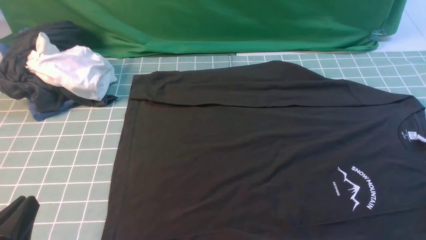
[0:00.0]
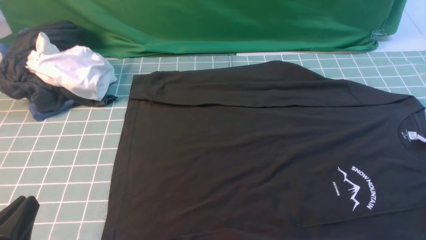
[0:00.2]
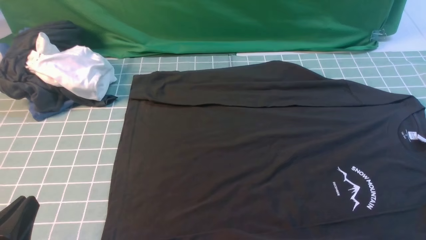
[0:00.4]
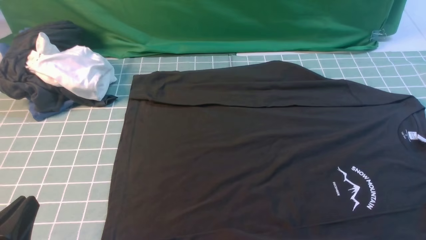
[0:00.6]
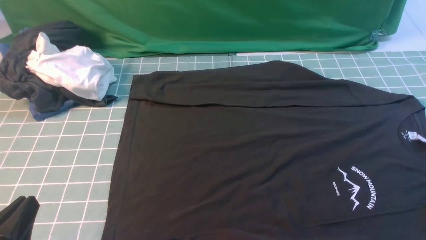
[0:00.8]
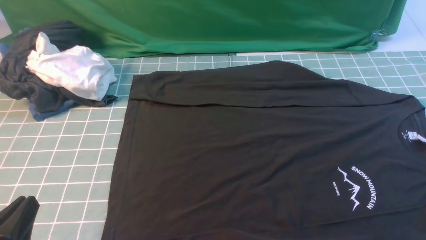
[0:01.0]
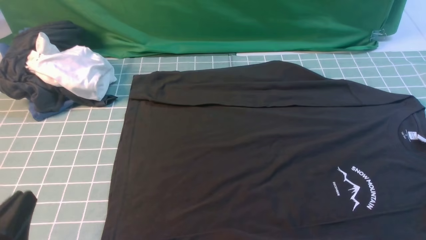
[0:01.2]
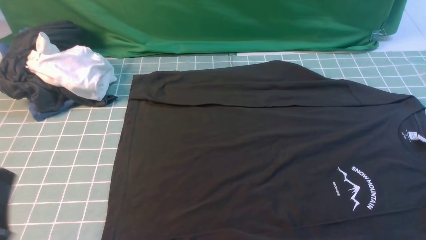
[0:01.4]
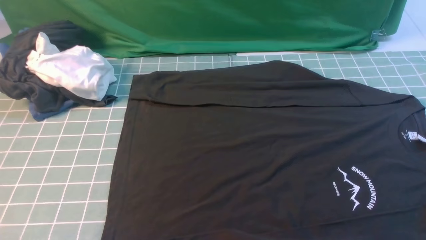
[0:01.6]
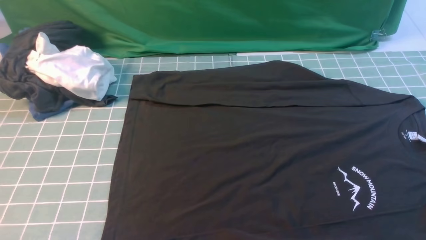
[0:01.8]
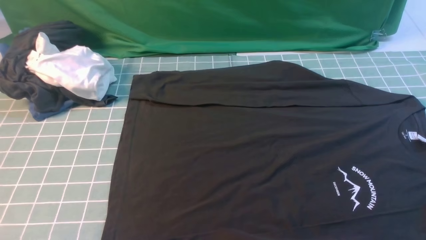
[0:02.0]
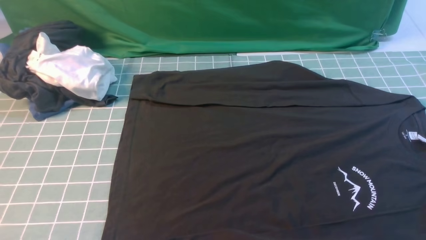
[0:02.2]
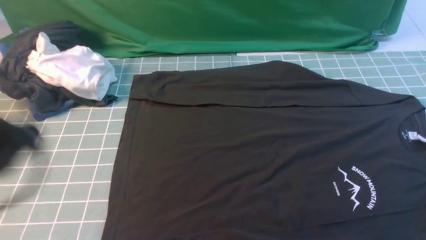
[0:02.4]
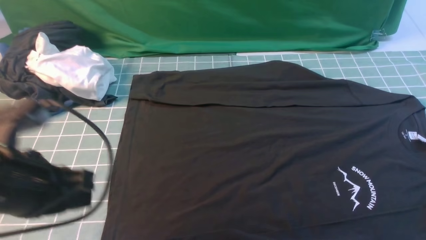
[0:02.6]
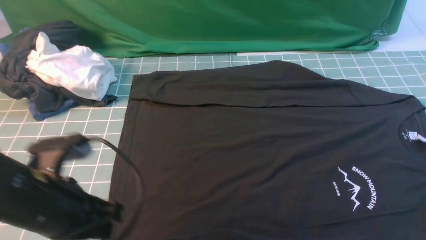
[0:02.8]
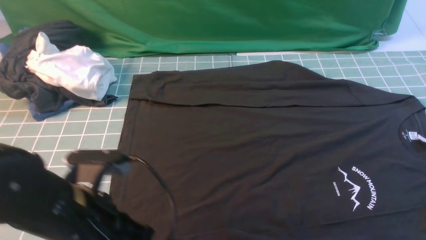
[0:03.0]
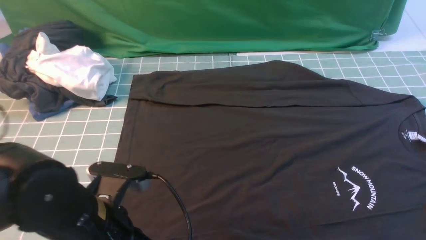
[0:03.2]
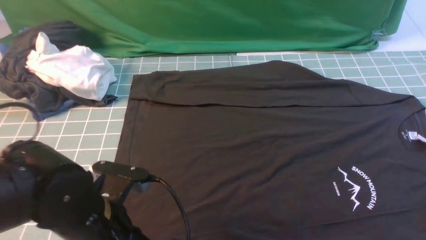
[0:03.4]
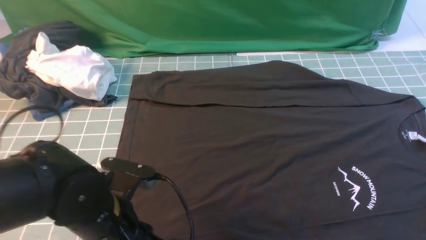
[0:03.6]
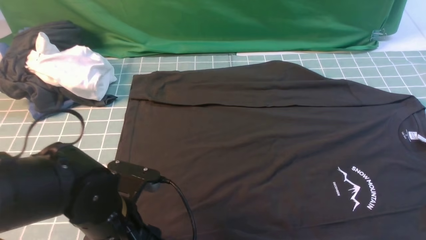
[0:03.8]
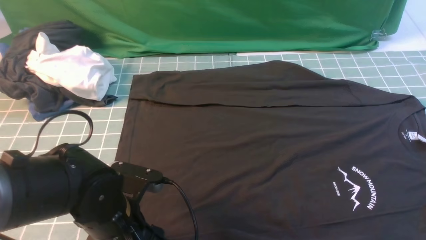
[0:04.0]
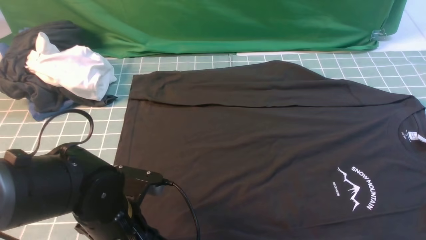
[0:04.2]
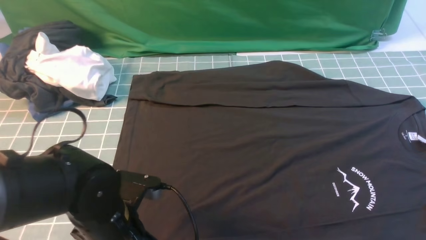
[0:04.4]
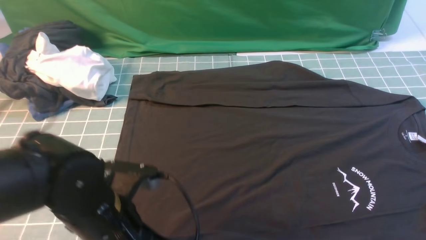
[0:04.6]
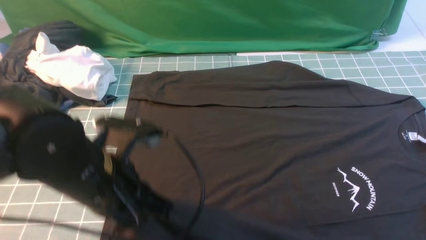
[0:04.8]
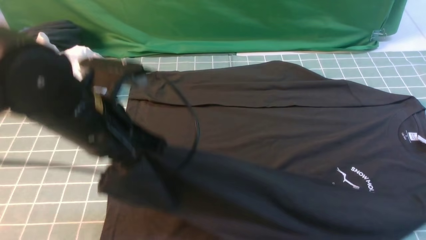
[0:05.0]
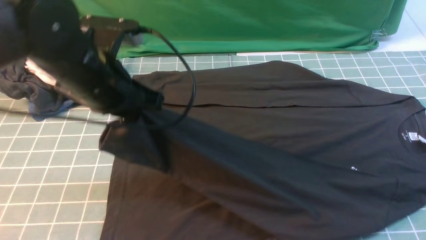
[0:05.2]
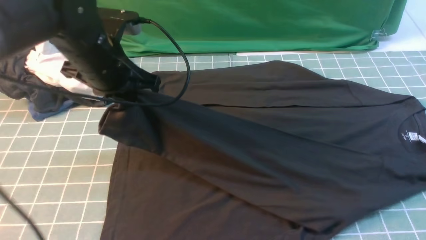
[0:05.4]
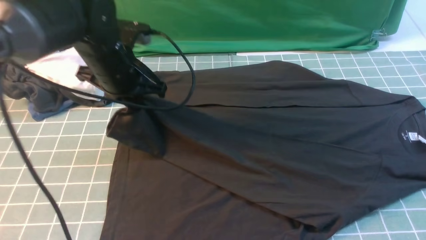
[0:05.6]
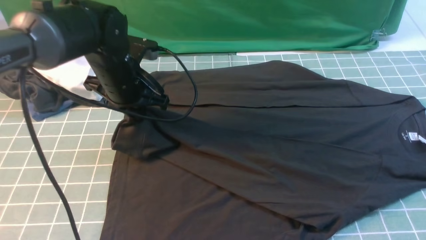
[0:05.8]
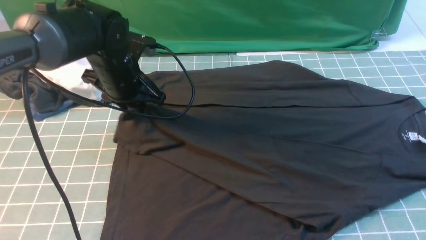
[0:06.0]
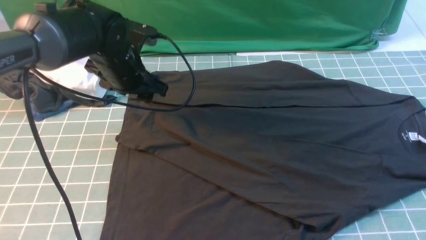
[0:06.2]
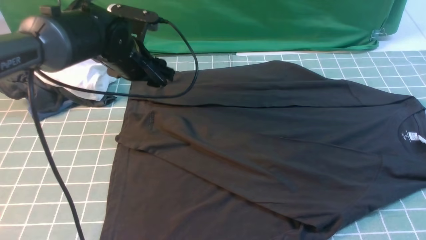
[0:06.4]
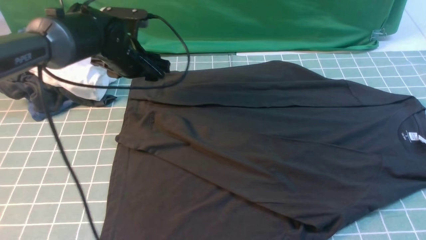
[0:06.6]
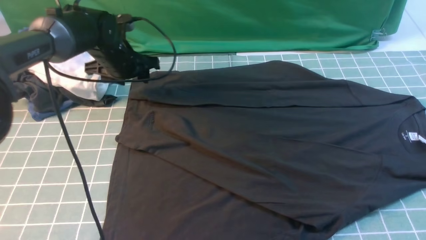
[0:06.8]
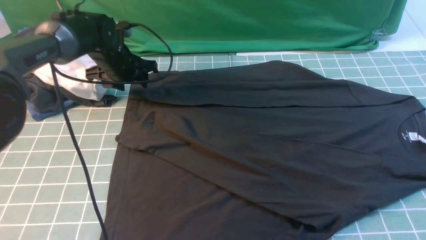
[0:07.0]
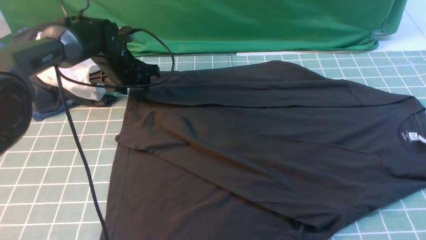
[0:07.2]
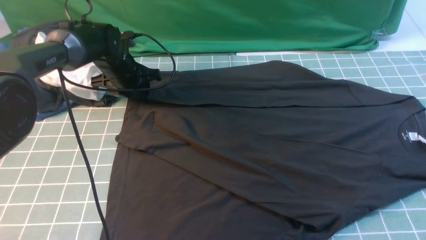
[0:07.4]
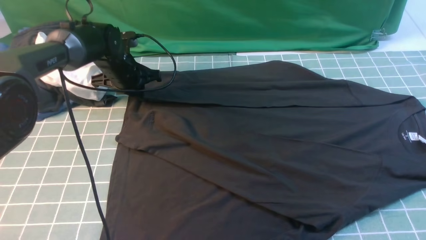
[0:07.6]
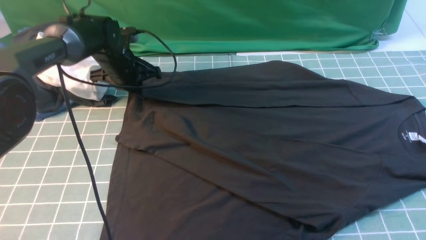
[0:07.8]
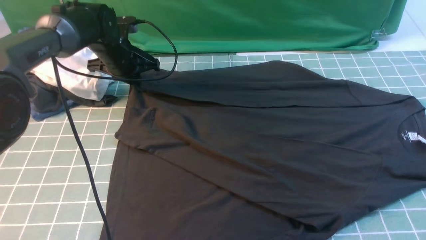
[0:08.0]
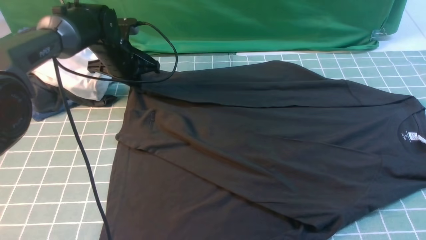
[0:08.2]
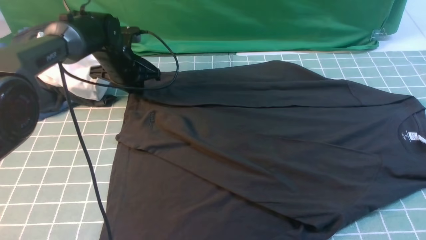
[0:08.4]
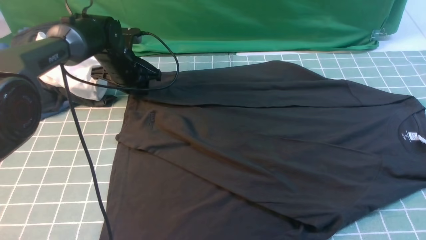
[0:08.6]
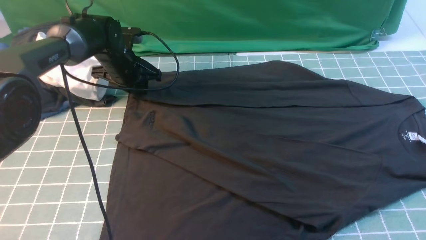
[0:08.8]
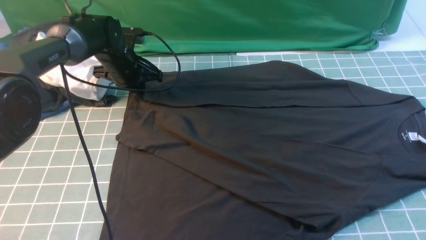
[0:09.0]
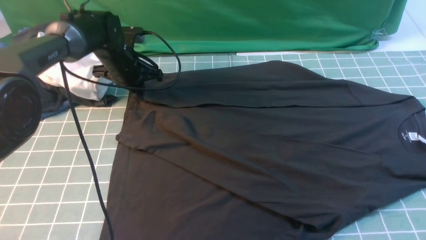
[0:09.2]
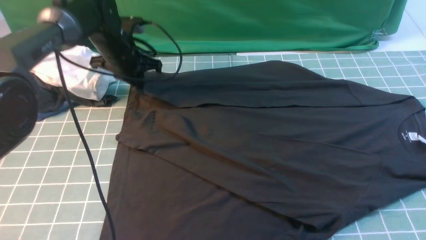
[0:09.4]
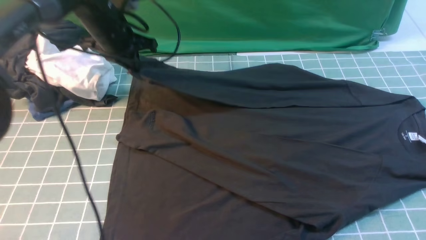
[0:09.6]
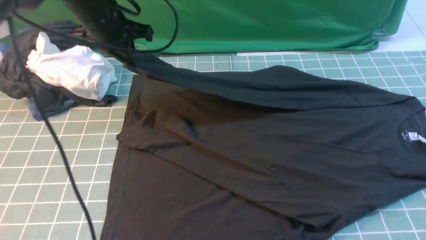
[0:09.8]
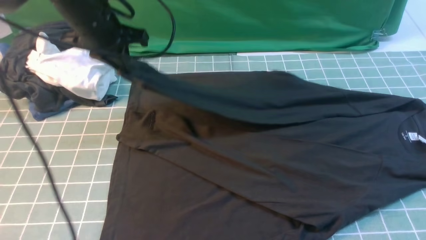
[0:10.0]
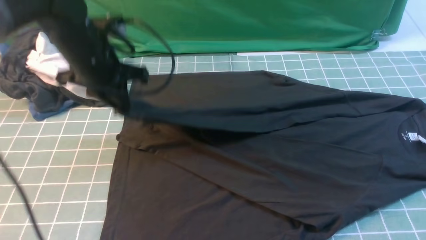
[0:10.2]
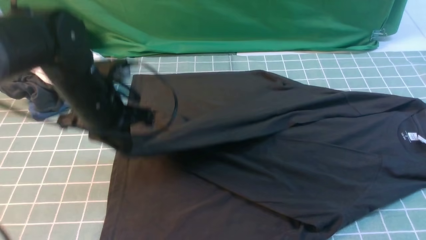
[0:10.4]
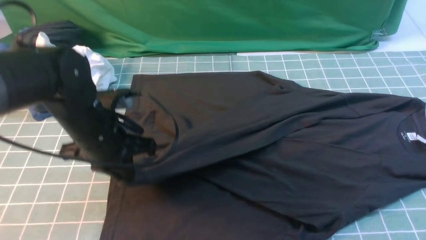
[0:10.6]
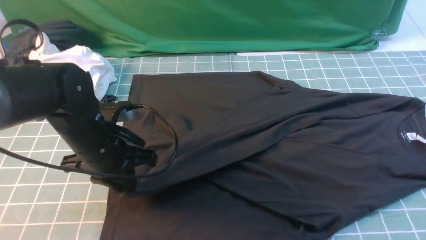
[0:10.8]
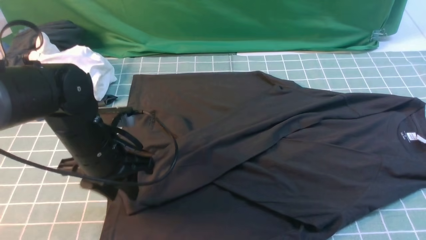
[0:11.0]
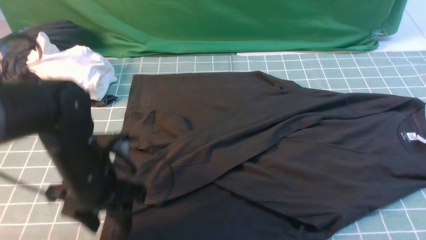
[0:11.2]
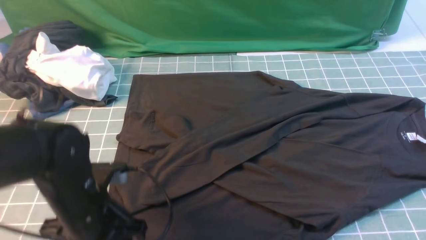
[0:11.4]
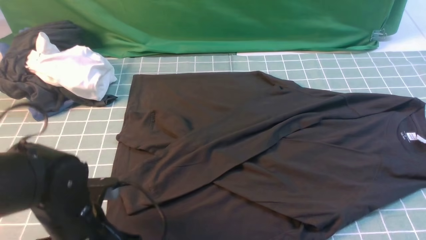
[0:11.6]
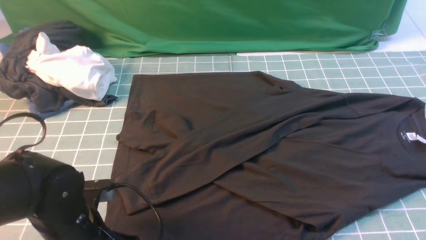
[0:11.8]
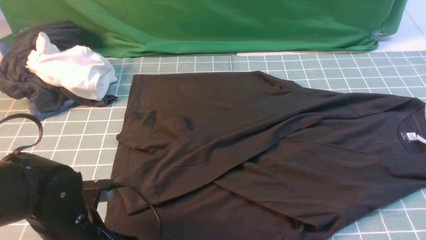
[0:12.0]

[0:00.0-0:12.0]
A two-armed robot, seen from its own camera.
Step, 0:00.0 to 0:04.8: use the left arm to clamp the cuff closest to it.
Step, 0:05.0 to 0:06.0: use the left arm to drag and place the cuff at the centered position on the left edge of the fabric.
Step, 0:06.4 to 0:09.4: use the left arm to clamp the cuff farthest from it.
Step, 0:09.6 to 0:11.0: use the left arm to drag and drop the cuff onto the cuff closest to the left arm.
0:00.0 to 0:01.6: The left gripper shifts some 5 cm upward.
0:01.6 to 0:03.0: The left gripper goes about 15 cm forward and to the right, and travels upward and back again, approximately 10 cm each way.
0:03.0 to 0:04.4: The left gripper changes place by approximately 5 cm, and opens and closes again.
0:04.4 to 0:06.0: The left gripper heads forward, covering about 20 cm, and opens.
0:06.0 to 0:07.6: The left gripper moves forward and downward, some 10 cm, and opens and closes again.
0:07.6 to 0:09.0: The grippers move only a little.
0:09.0 to 0:10.4: The left gripper is displaced backward by roughly 15 cm.
0:10.4 to 0:12.0: The left gripper is displaced backward and downward by roughly 15 cm, and opens.

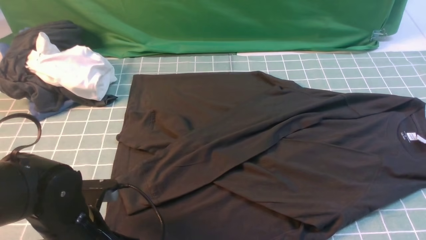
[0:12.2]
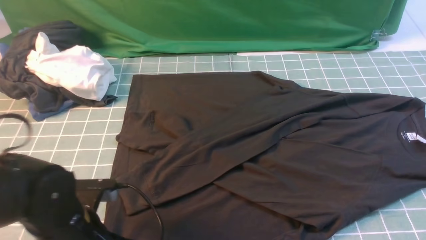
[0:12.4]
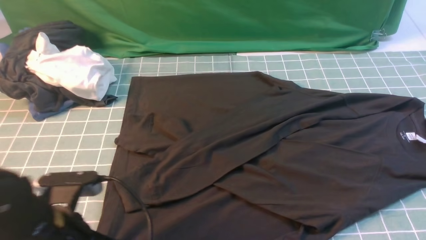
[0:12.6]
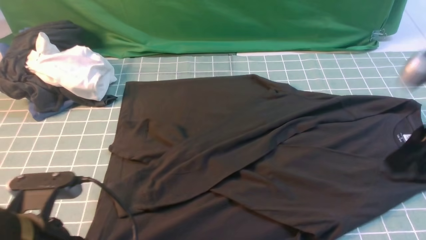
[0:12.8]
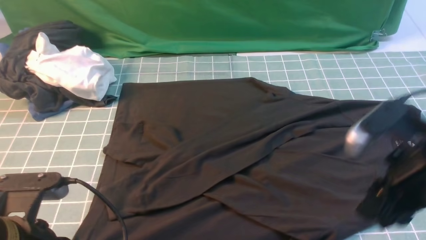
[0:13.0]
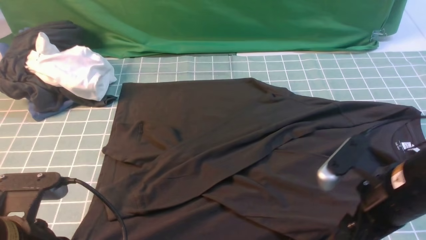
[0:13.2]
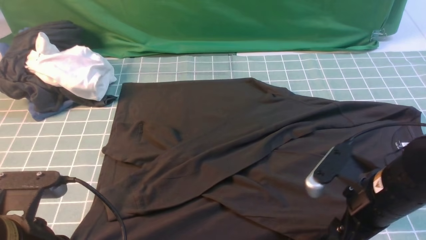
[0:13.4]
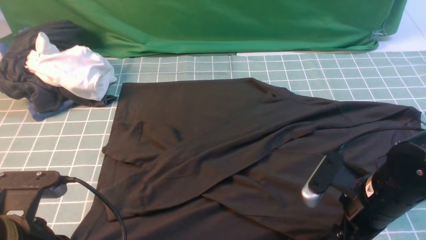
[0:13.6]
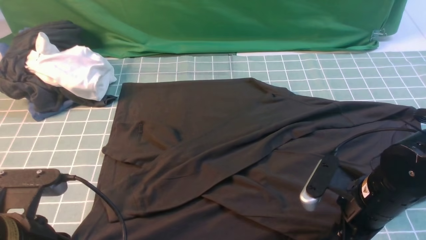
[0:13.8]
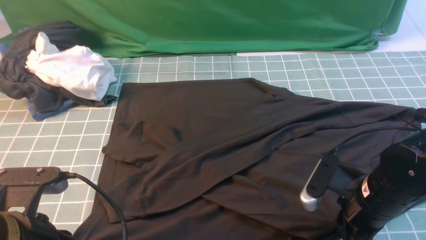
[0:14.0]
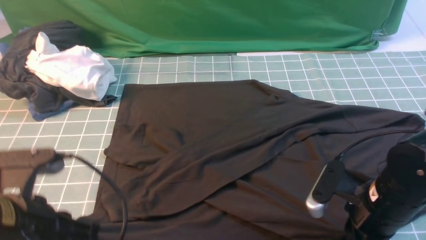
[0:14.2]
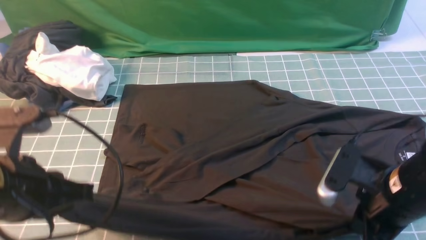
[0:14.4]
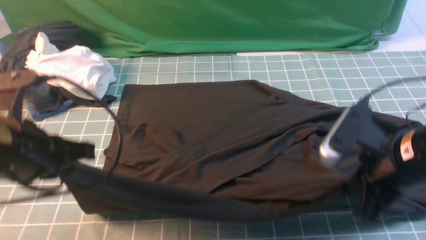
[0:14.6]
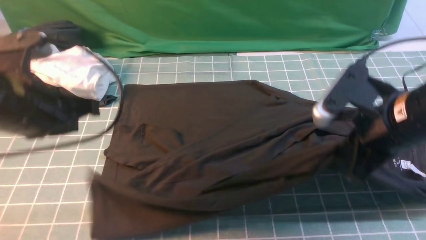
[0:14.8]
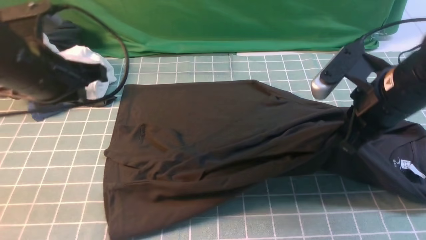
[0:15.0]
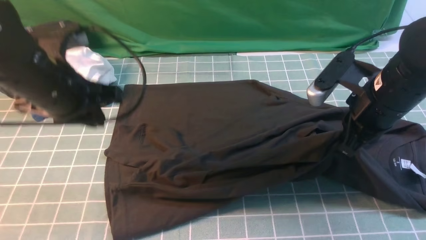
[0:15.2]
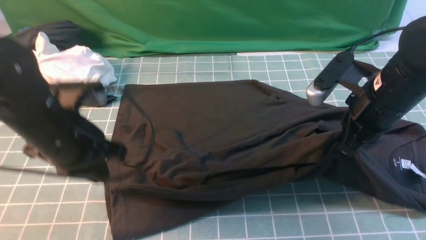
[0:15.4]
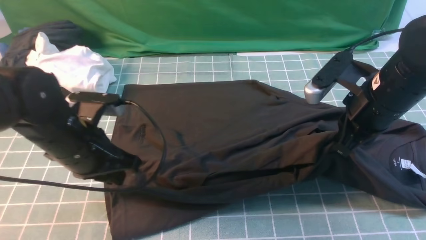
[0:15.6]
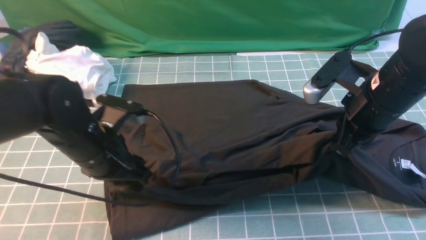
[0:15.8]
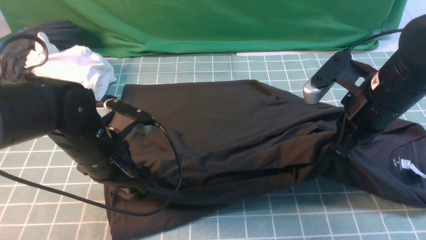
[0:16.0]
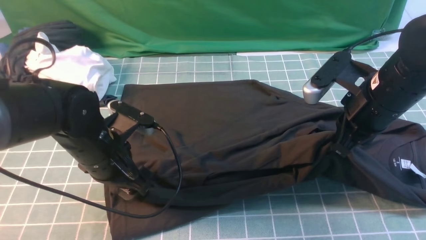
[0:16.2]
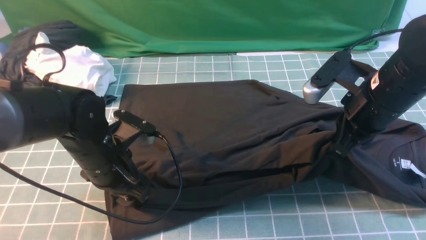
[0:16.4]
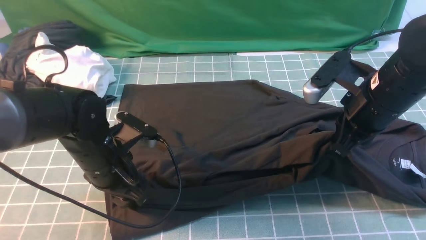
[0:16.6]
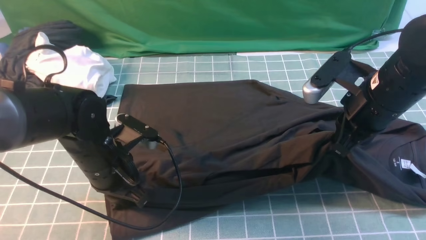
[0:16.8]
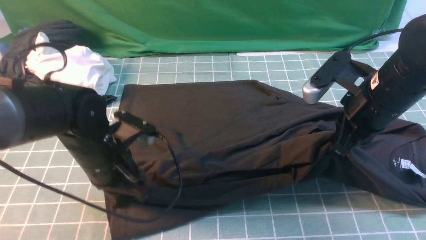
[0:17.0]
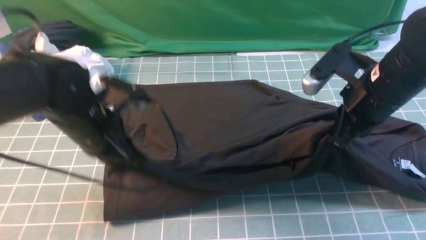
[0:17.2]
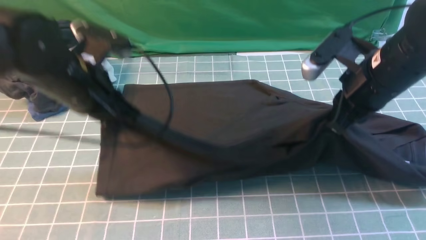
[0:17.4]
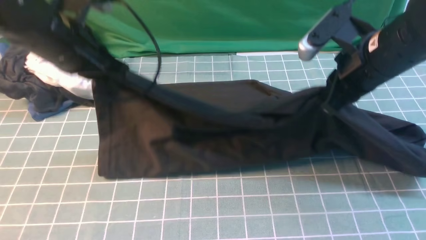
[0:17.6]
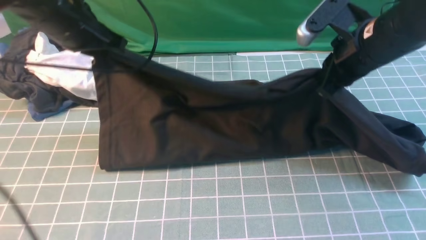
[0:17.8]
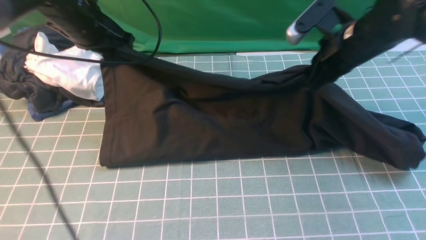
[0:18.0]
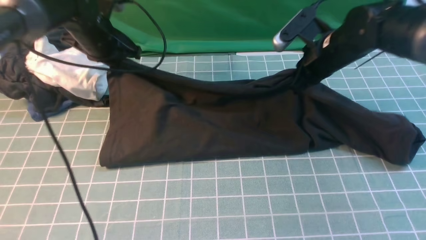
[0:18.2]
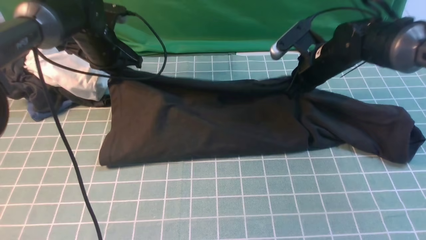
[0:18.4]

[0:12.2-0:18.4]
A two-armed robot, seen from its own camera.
Step, 0:12.2 to 0:14.4: use both arms simultaneously to clamp the lower edge of the clothing fabric.
0:12.2 to 0:13.8: The left gripper moves upward and backward, about 10 cm, while the right gripper goes approximately 25 cm downward and to the left, and opens up.
0:13.8 to 0:15.4: The right gripper shifts approximately 15 cm upward and forward, and closes up. Meanwhile the left gripper moves forward, approximately 15 cm.
0:15.4 to 0:16.8: The left gripper travels downward by about 5 cm, and opens, then closes once more.
0:16.8 to 0:18.4: The left gripper shifts approximately 20 cm forward, while the right gripper heads forward and downward, covering approximately 15 cm.
